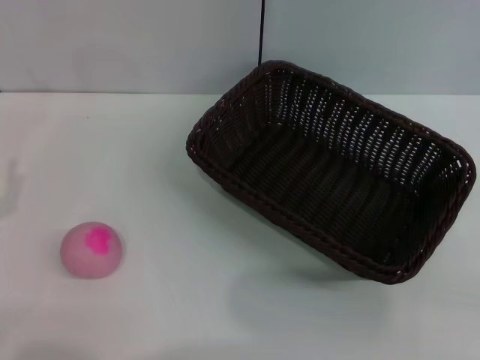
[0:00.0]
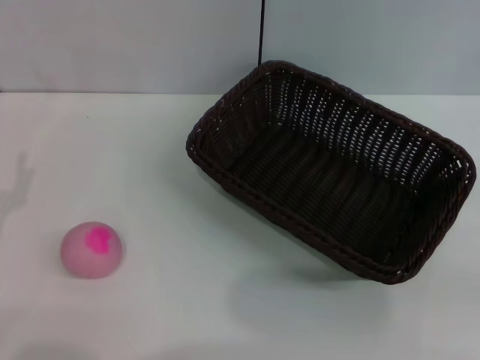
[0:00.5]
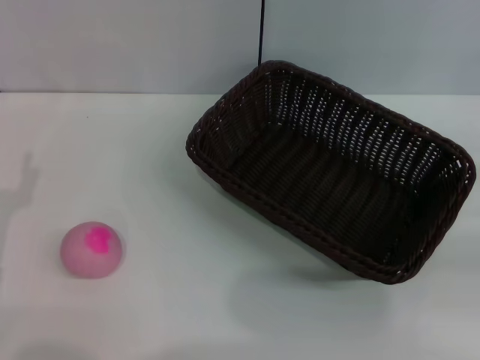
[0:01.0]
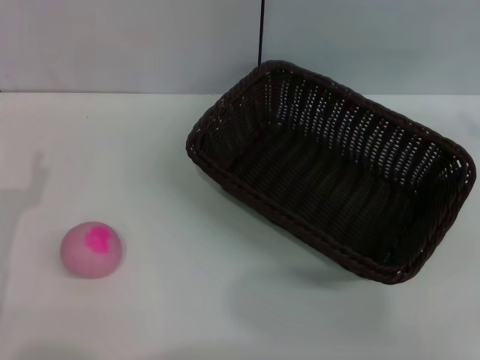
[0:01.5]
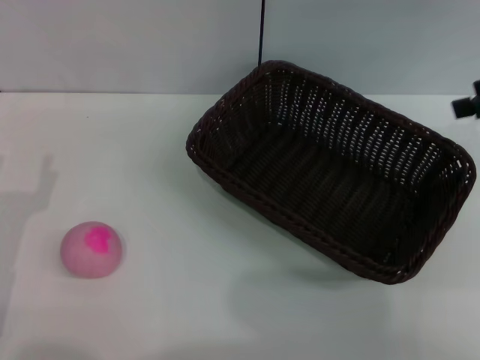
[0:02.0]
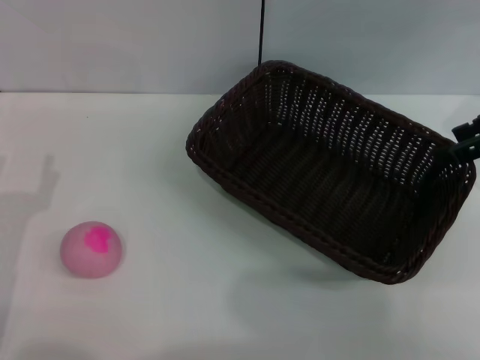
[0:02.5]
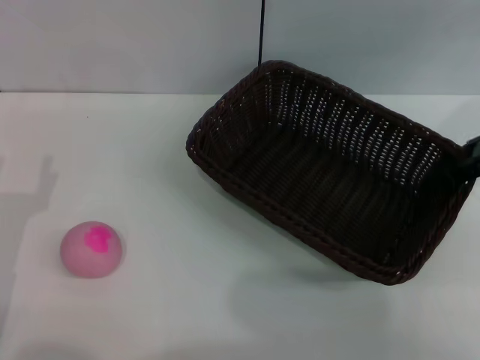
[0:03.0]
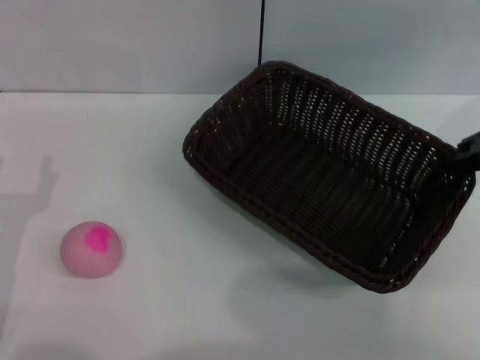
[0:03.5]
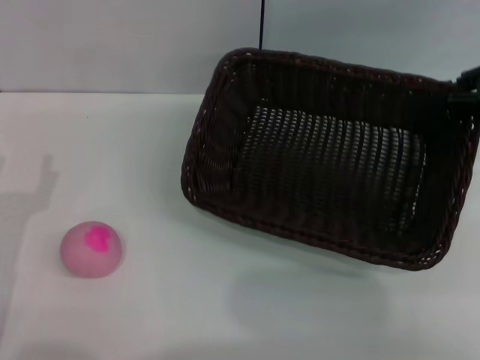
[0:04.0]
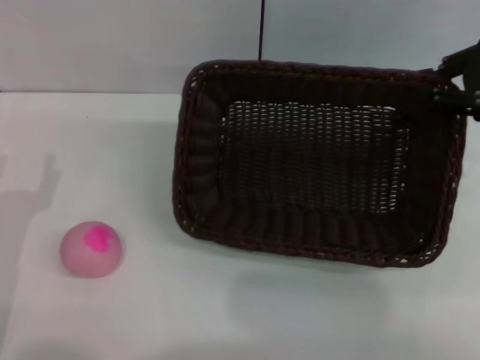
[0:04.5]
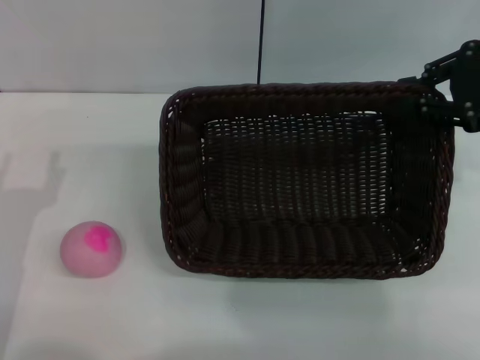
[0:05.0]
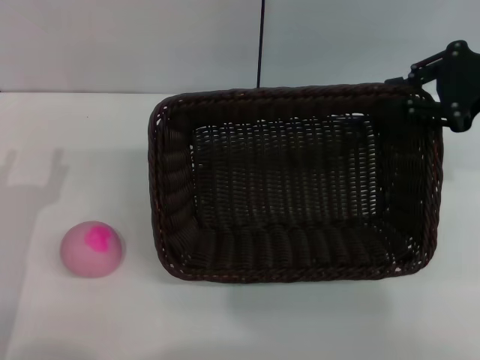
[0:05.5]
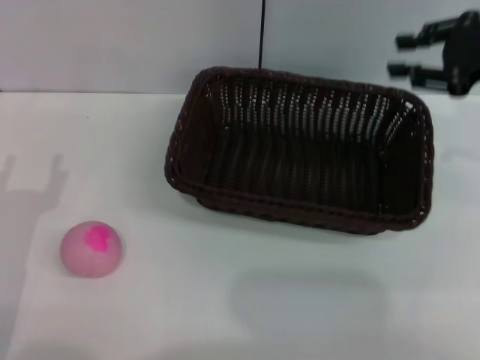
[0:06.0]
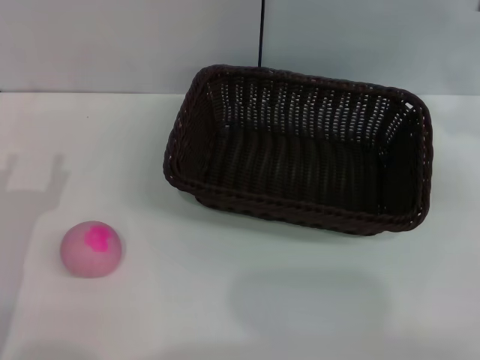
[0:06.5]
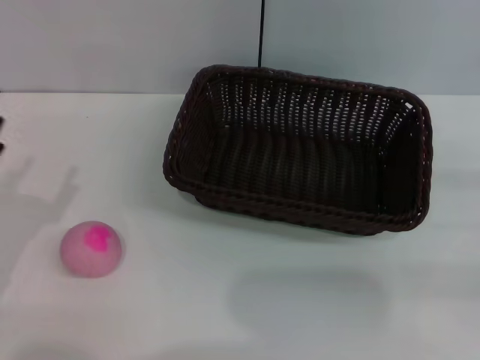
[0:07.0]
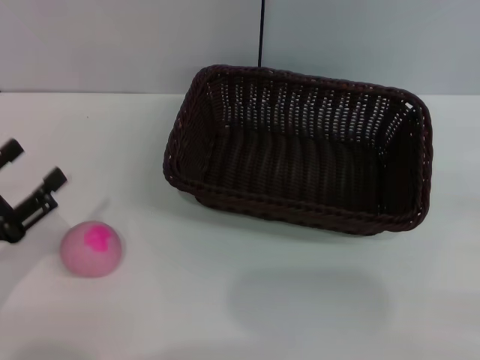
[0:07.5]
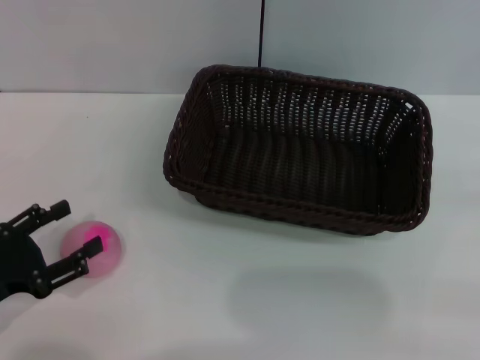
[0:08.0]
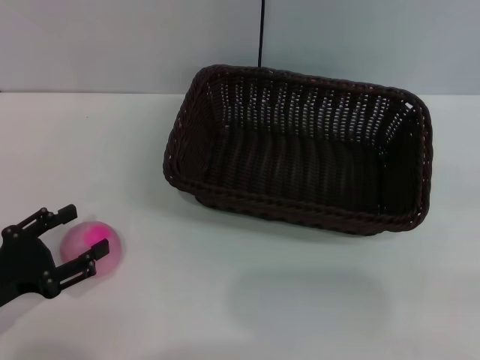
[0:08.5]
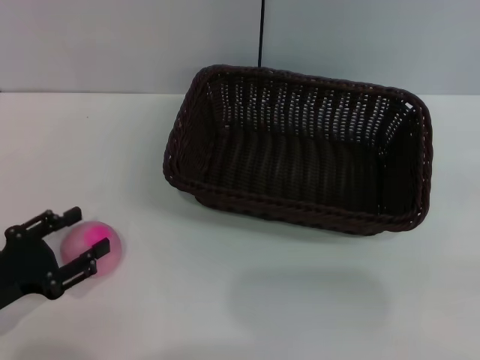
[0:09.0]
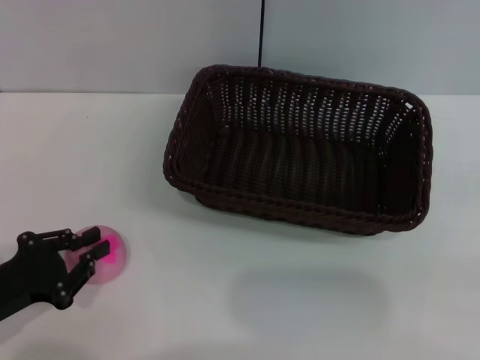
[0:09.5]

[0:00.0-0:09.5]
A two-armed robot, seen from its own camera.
Step, 0:00.0 to 0:04.5: Pick up the dark basket with the right gripper.
Step, 0:05.0 to 0:06.0: Place the dark basket in the center of view with the right gripper.
0:00.0 to 0:02.0: The right gripper shifts some 25 cm upward, forward and to the left, and opens its fingers.
0:02.0 to 0:04.0: The right gripper closes.
0:05.5 to 0:07.5: The right gripper moves backward, downward and to the right, approximately 25 cm.
0:07.5 to 0:09.5: The left gripper closes.

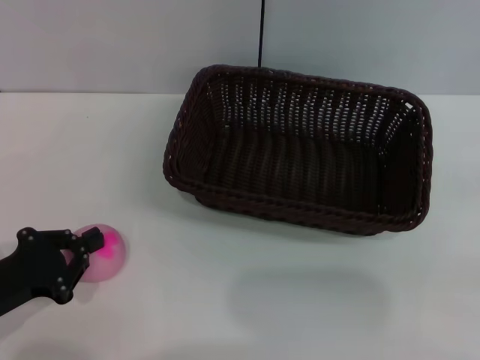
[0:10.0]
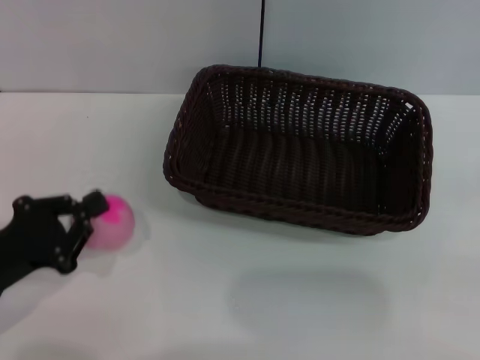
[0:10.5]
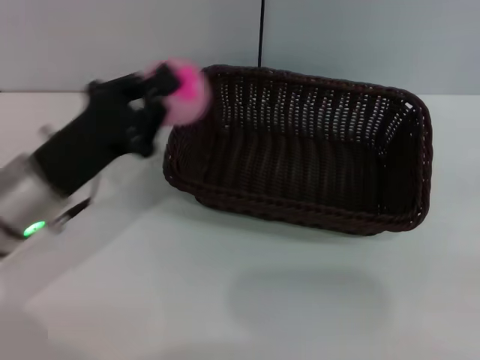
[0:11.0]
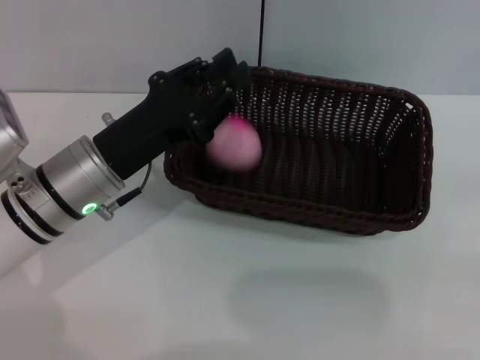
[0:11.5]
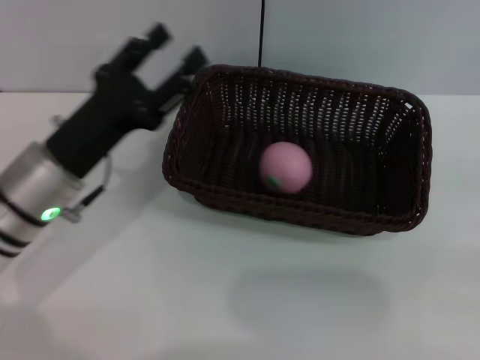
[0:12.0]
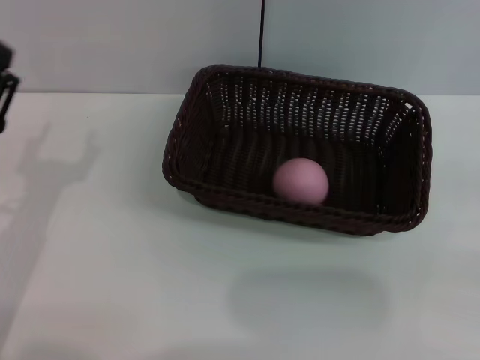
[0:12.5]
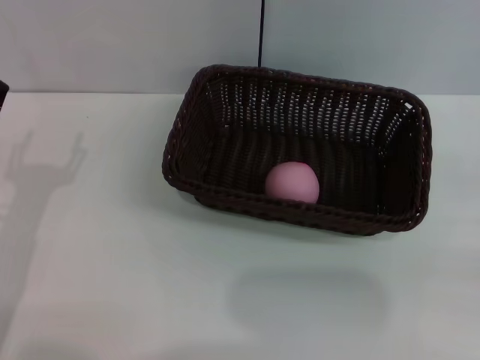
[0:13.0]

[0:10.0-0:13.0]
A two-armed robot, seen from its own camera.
Step, 0:11.0 to 0:11.5: Place the peach into the basket with the left gripper.
0:10.0 to 0:11.5: The left gripper shifts roughly 20 cm to the right, forward and upward.
0:11.5 to 0:13.0: The left gripper heads to the left and backward, covering approximately 15 cm, and opens its fingers.

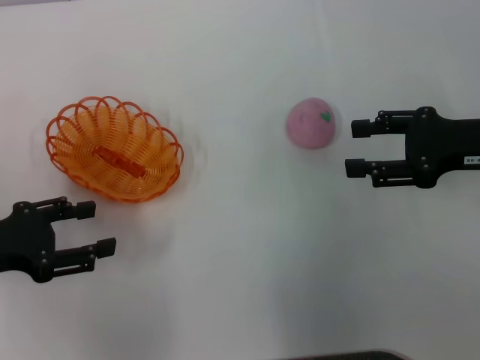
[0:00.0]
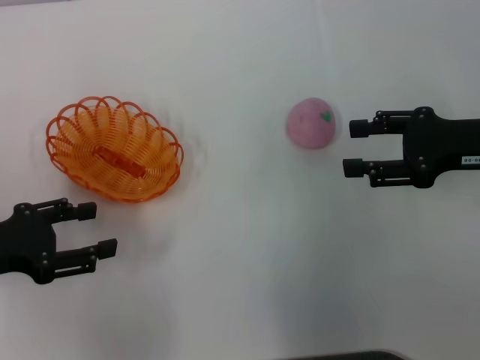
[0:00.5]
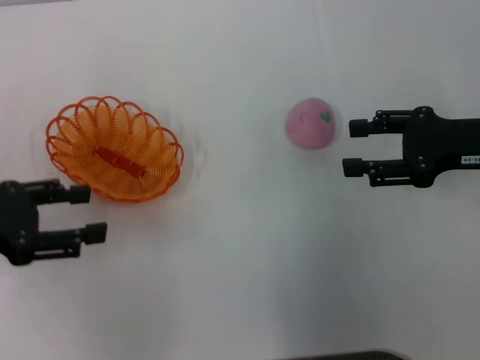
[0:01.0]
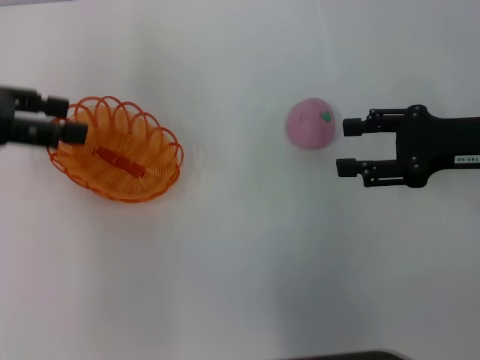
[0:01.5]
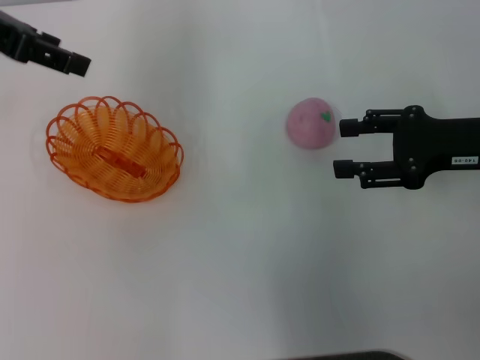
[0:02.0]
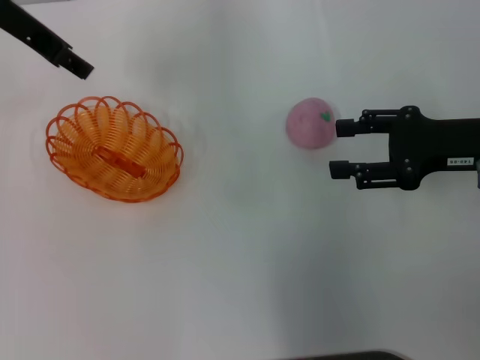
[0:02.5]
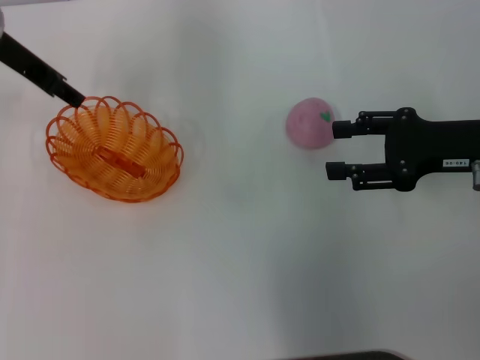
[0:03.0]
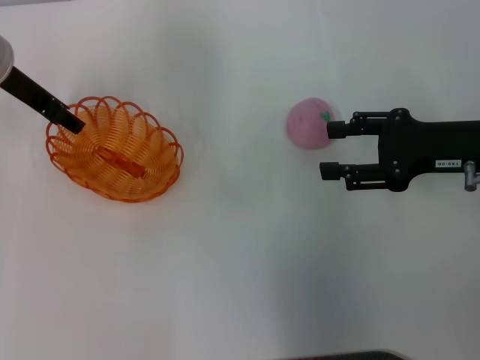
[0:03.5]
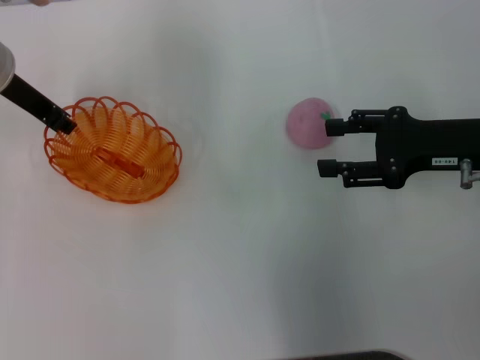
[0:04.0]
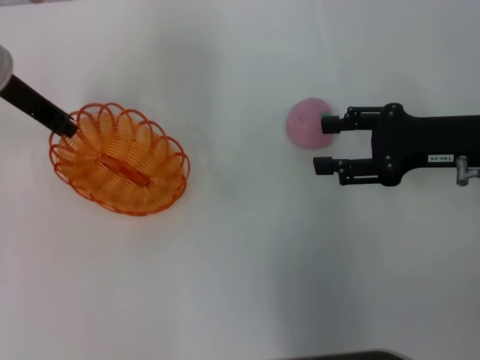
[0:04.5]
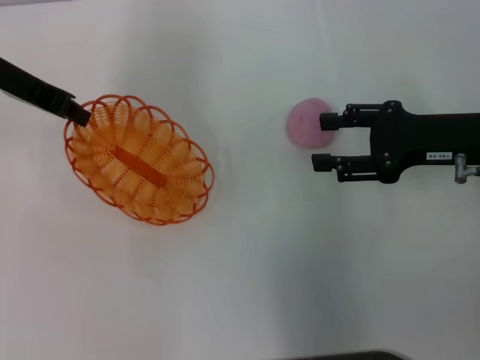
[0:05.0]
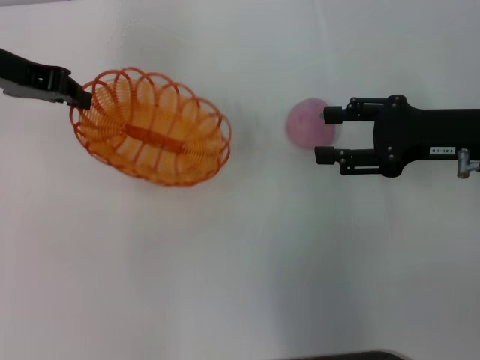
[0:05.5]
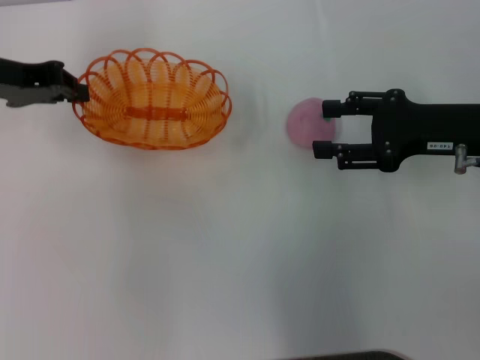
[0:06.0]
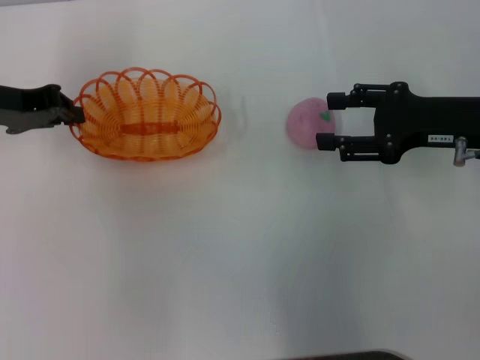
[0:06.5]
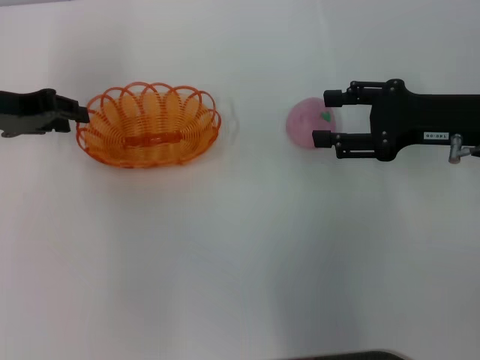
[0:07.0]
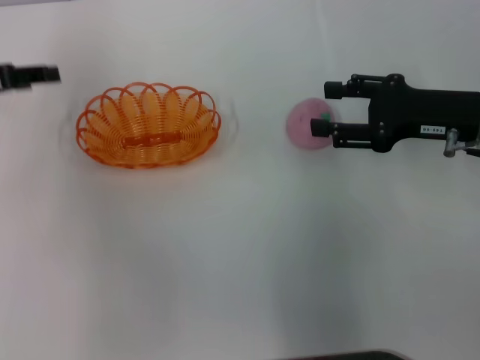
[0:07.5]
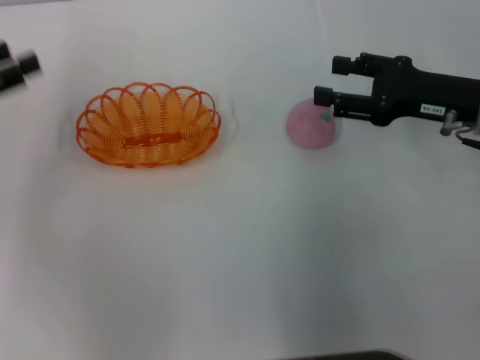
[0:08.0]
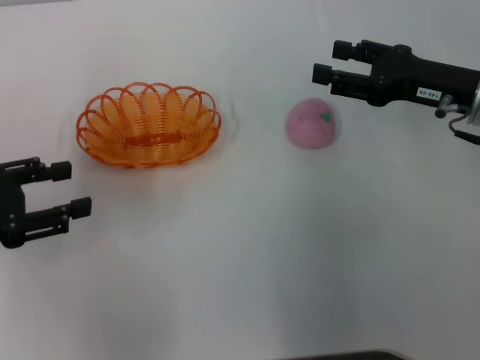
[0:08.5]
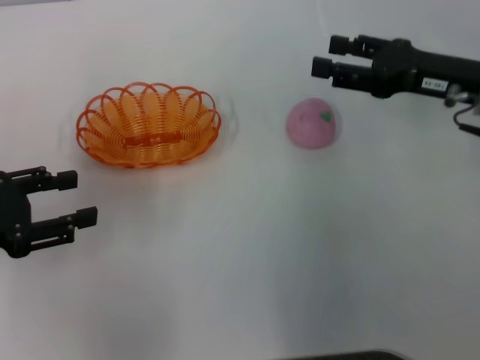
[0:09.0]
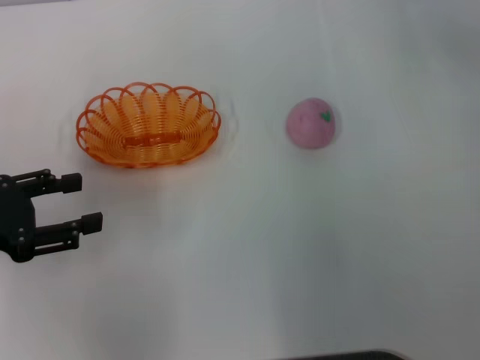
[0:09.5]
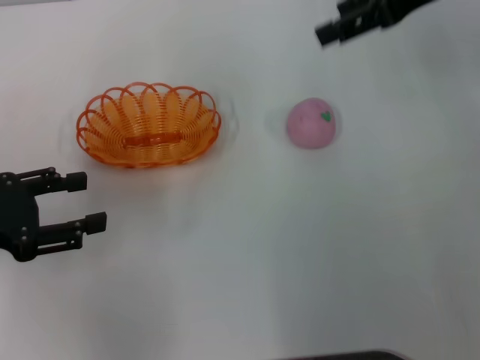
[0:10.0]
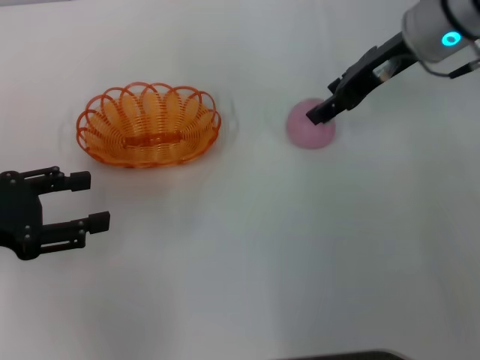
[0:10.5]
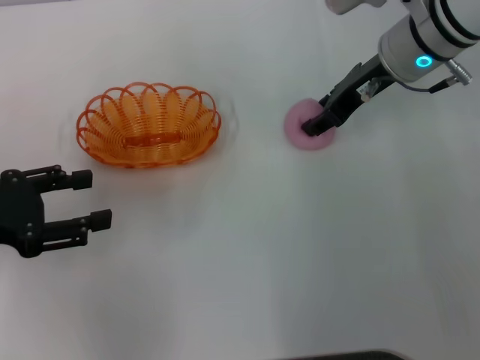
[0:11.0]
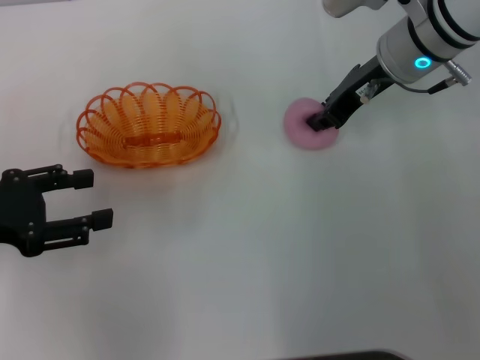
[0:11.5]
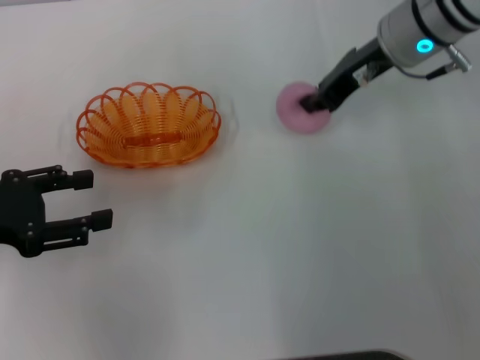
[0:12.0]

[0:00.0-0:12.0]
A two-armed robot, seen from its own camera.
Step, 0:00.0 to 0:05.5: Pick up the basket with the left gripper.
Step, 0:06.0 to 0:07.5: Place the basket in the center of view with the left gripper.
0:00.0 to 0:02.0: The left gripper is displaced upward and forward by some 25 cm.
0:02.0 to 0:04.0: The left gripper heads downward, covering about 10 cm, and closes up.
0:04.0 to 0:06.0: The left gripper ends up some 5 cm from where it was, and closes.
0:06.0 to 0:08.0: The left gripper heads backward and to the left, covering some 10 cm, and opens.
0:08.0 to 0:10.0: The left gripper heads backward, covering roughly 5 cm; the right gripper shifts about 15 cm upward and forward.
0:10.0 to 0:12.0: The right gripper heads downward and to the left, covering about 10 cm, and closes its fingers.

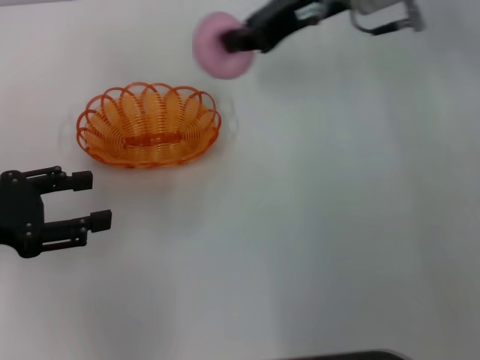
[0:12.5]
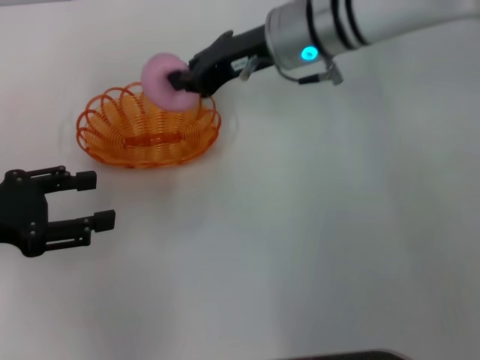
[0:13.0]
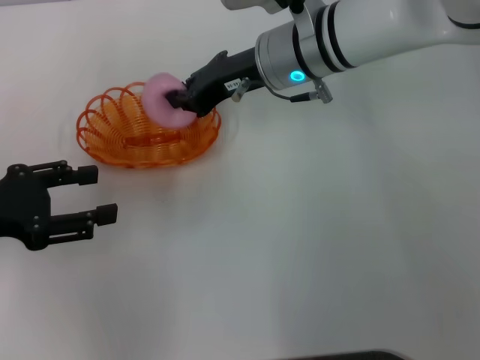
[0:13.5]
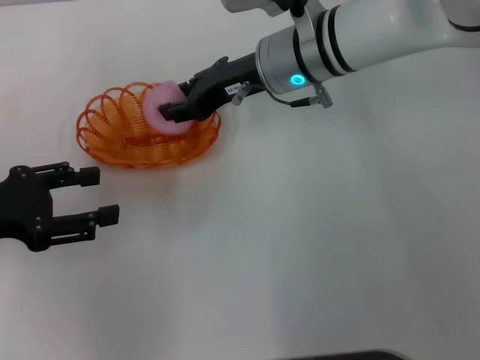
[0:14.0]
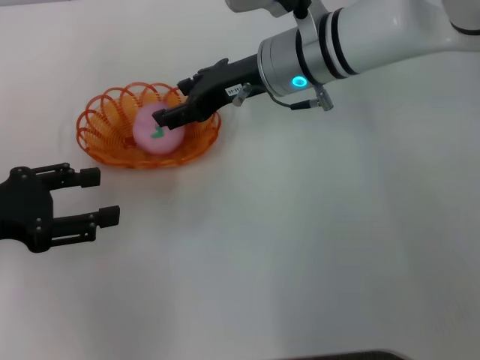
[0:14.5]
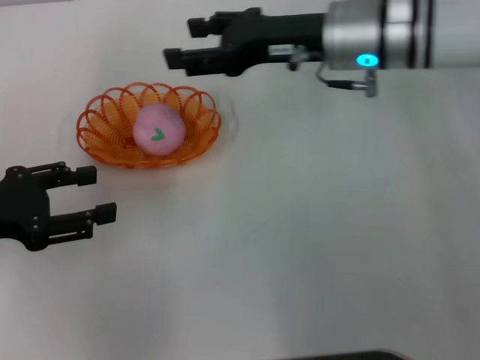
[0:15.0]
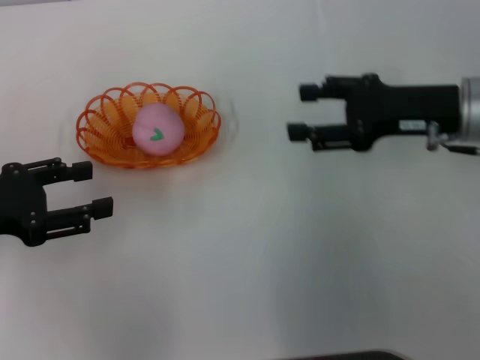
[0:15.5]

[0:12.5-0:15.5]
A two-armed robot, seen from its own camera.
Step, 0:12.5 to 0:15.0: Place the peach into the basket with the right gripper.
0:12.5 to 0:14.0: The right gripper moves downward and to the left, approximately 10 cm, and opens.
0:14.0 to 0:15.5: The right gripper moves to the right and backward, about 20 cm, and opens up.
